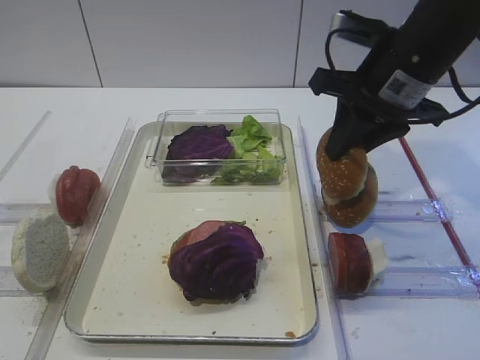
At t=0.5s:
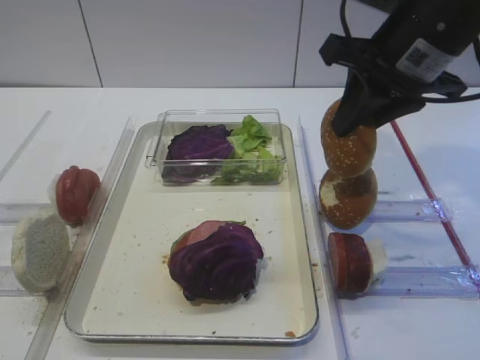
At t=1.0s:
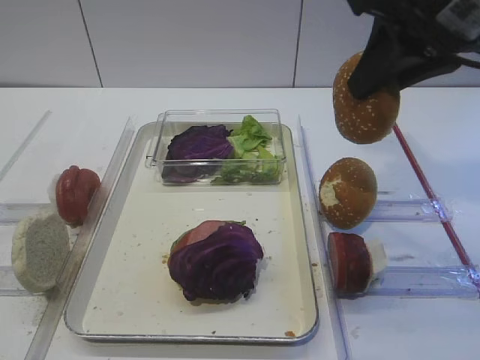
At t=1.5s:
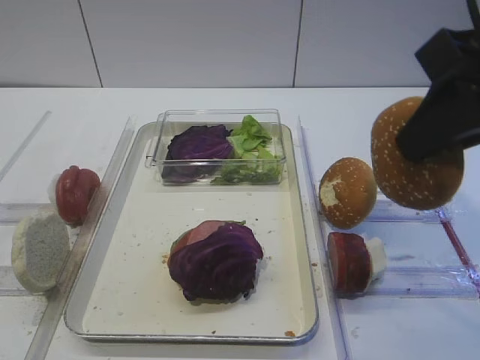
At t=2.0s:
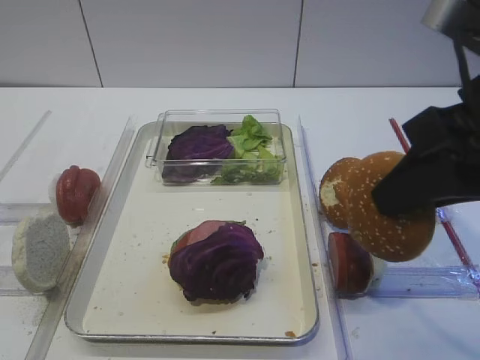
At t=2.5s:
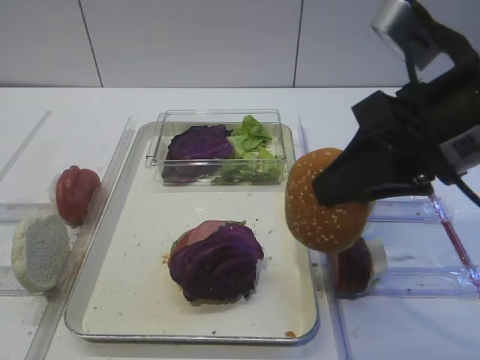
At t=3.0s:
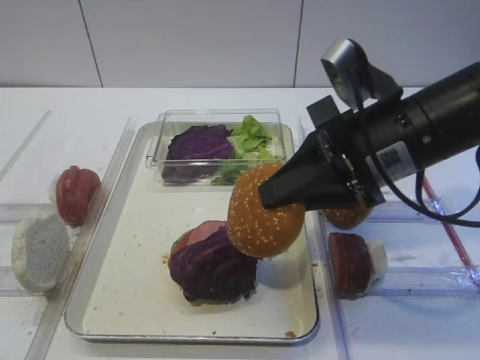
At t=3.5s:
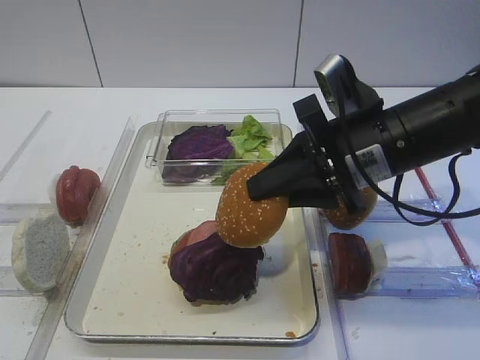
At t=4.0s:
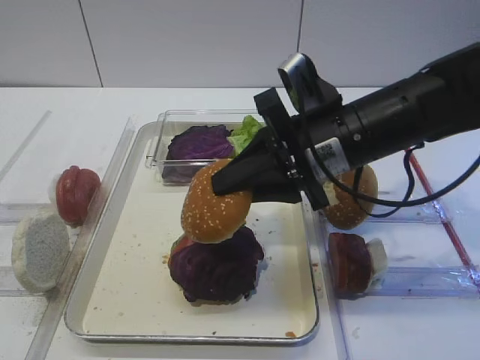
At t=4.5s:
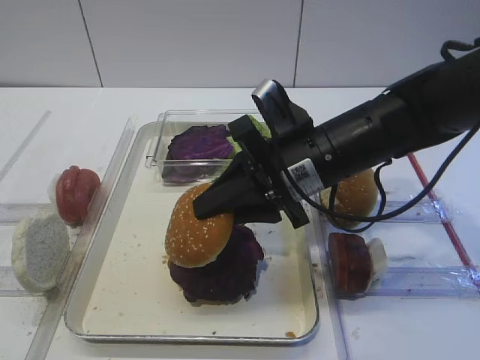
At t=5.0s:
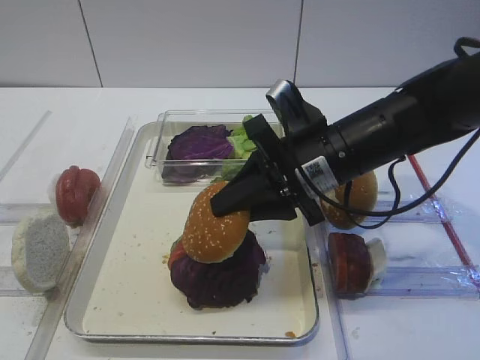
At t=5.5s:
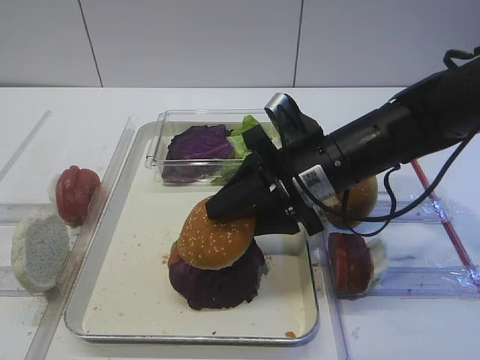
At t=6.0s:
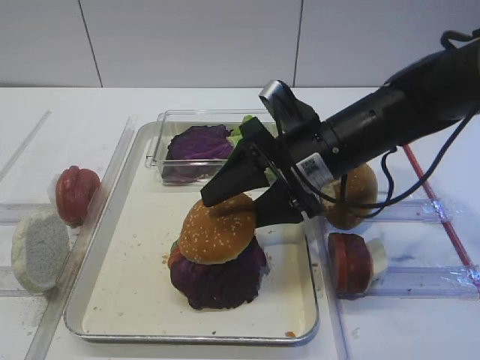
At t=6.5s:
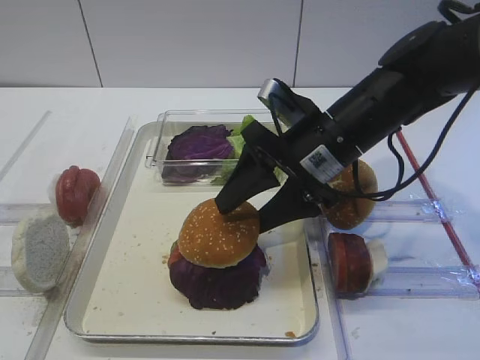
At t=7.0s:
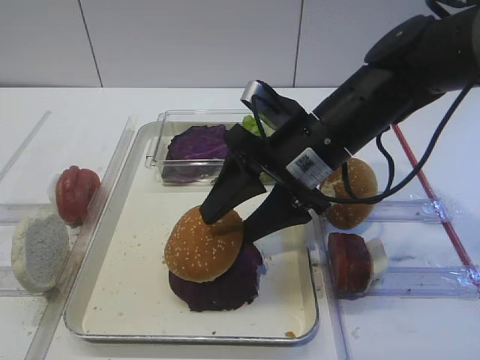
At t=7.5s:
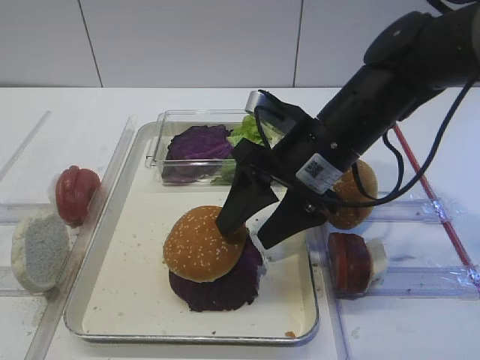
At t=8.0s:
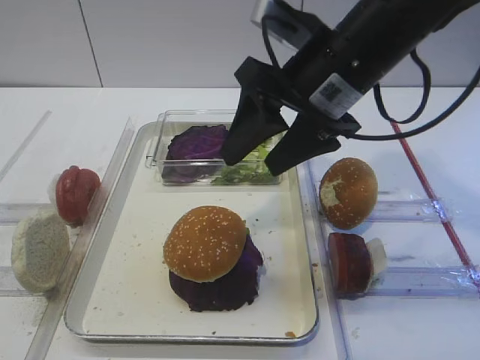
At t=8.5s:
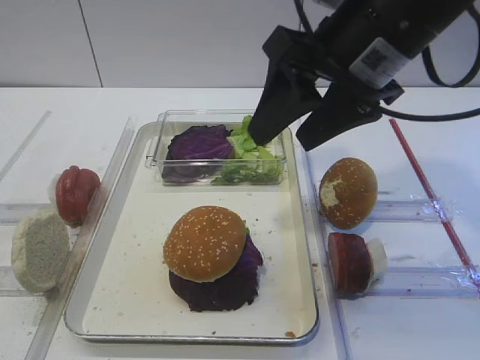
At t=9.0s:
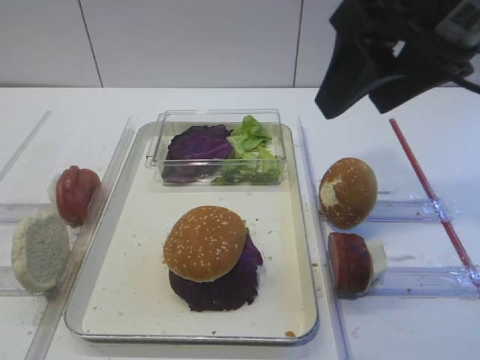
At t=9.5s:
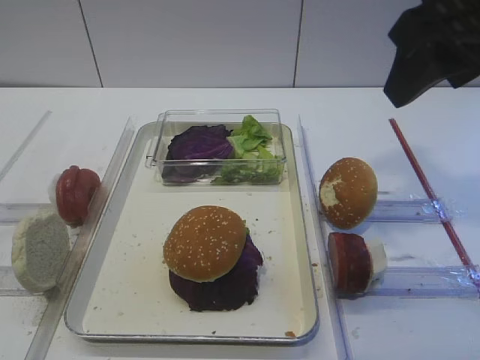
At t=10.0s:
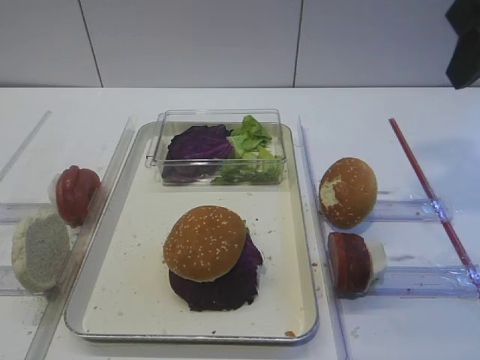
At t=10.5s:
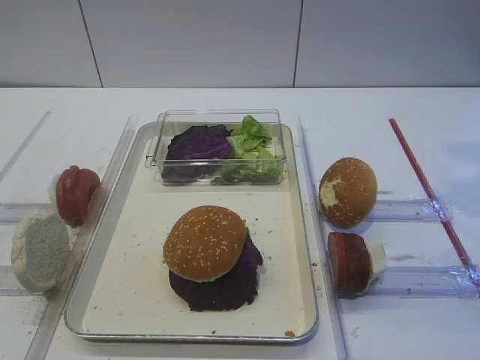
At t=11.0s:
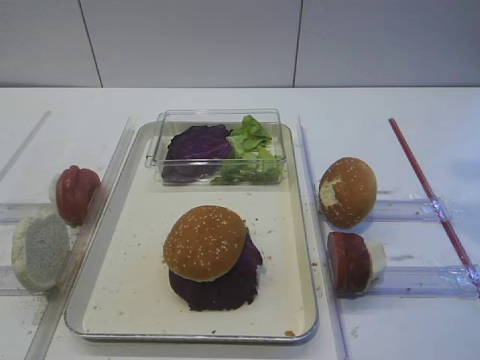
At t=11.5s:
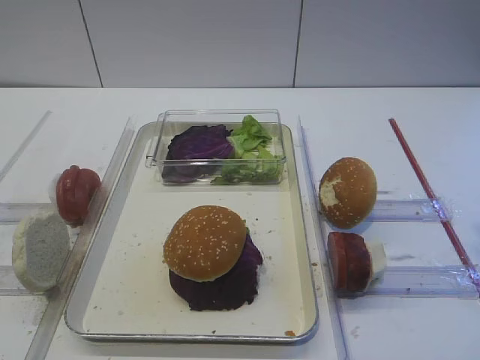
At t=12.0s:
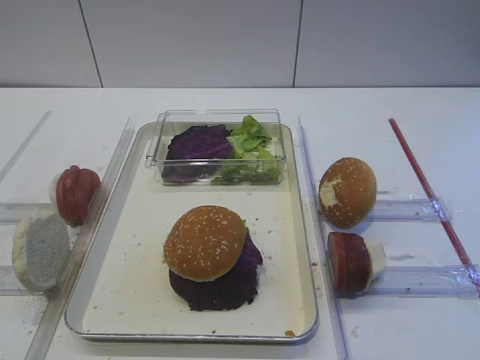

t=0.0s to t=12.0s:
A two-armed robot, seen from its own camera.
Step, t=1.0s to t=8.0s: Place the hamburger lid on the purple cabbage with the right gripper.
t=0.0s to t=2.0s: The right gripper goes some 15 cm backward.
t=2.0s to t=4.0s: The right gripper shifts about 15 cm forward, downward and to the left.
t=4.0s to t=6.0s: The right gripper opens its fingers.
t=6.0s to t=8.0s: The right gripper goes about 10 cm upward.
t=8.0s to t=10.0s: The right gripper goes about 15 cm to the right and upward.
t=10.0s to t=12.0s: The right gripper travels backward by roughly 15 cm.

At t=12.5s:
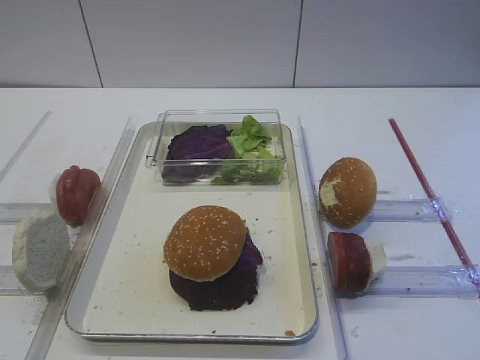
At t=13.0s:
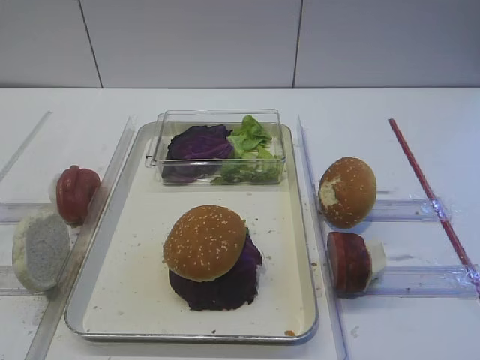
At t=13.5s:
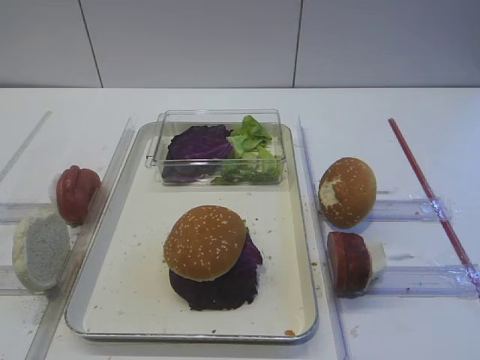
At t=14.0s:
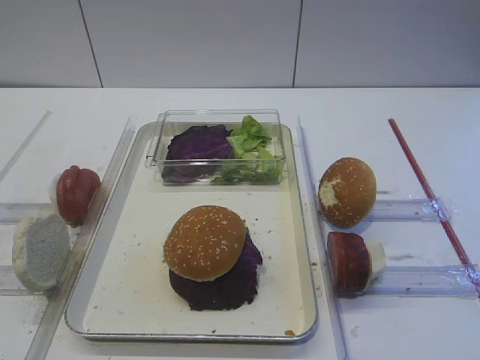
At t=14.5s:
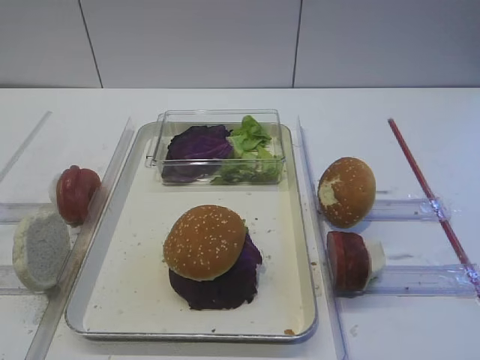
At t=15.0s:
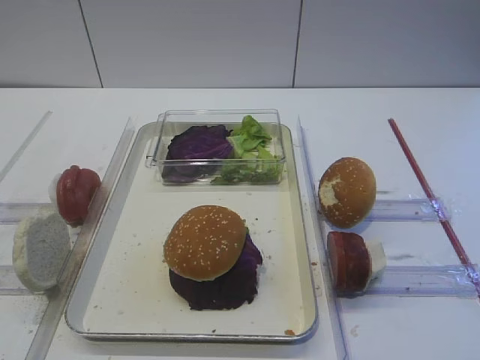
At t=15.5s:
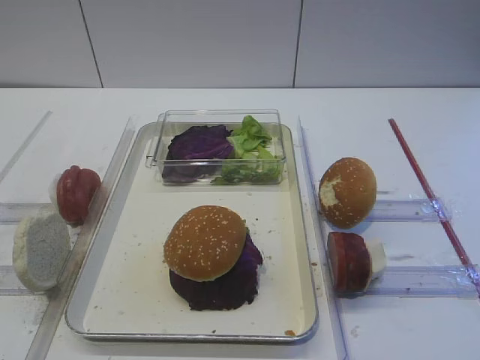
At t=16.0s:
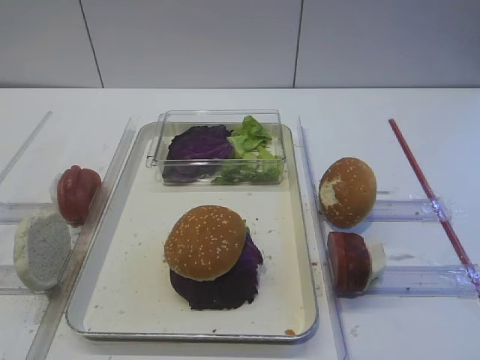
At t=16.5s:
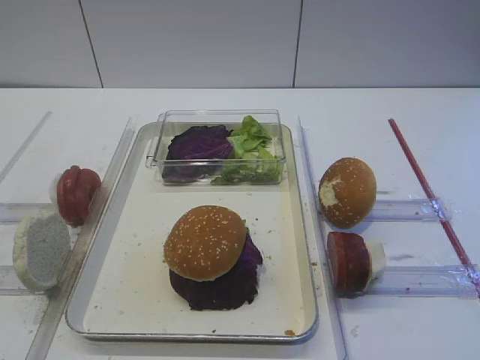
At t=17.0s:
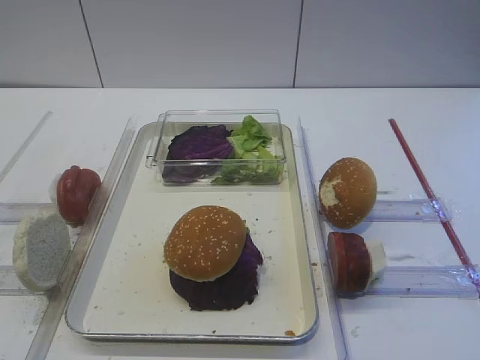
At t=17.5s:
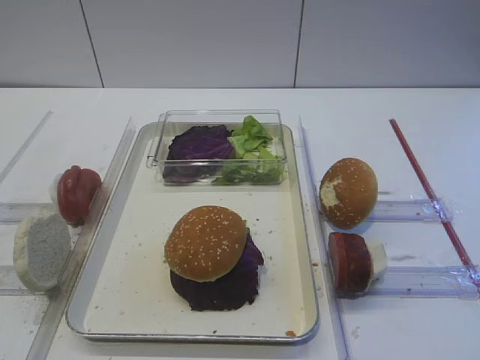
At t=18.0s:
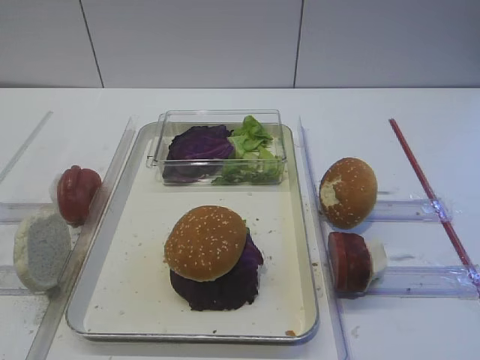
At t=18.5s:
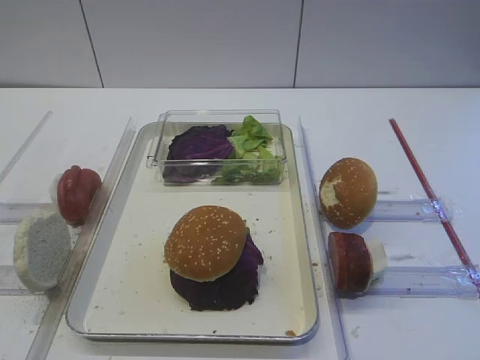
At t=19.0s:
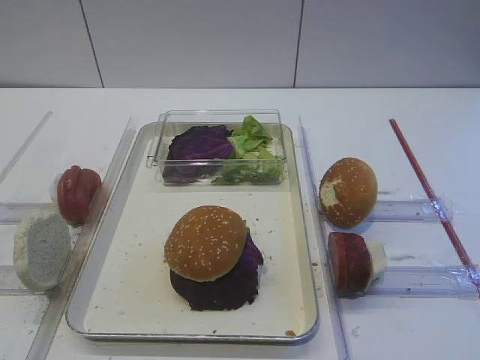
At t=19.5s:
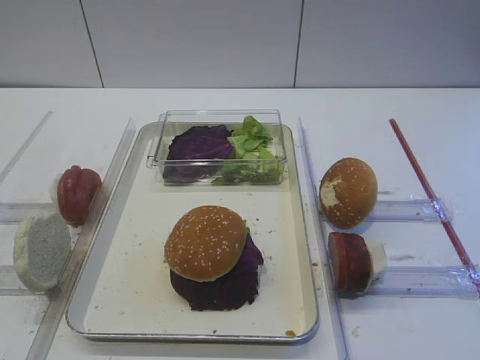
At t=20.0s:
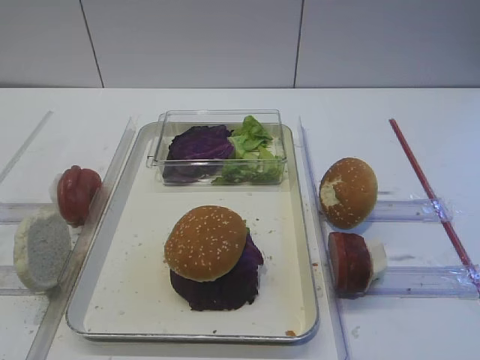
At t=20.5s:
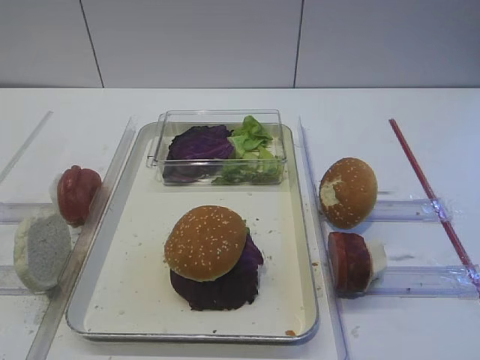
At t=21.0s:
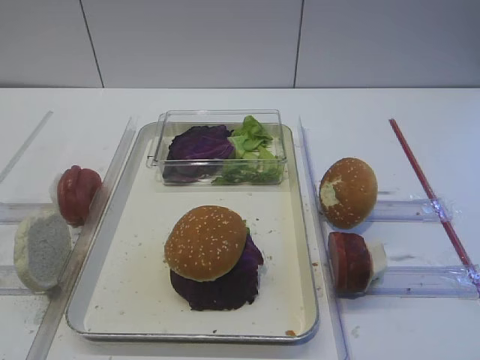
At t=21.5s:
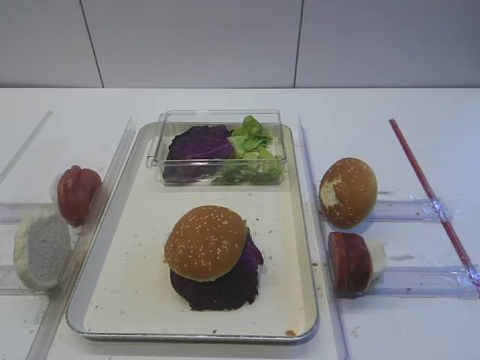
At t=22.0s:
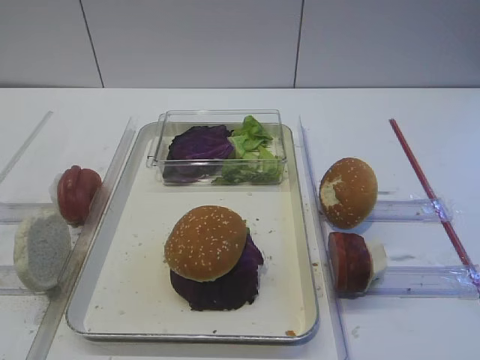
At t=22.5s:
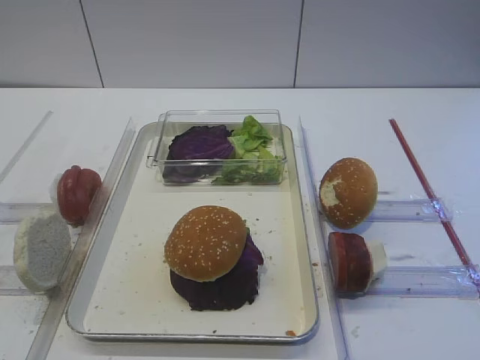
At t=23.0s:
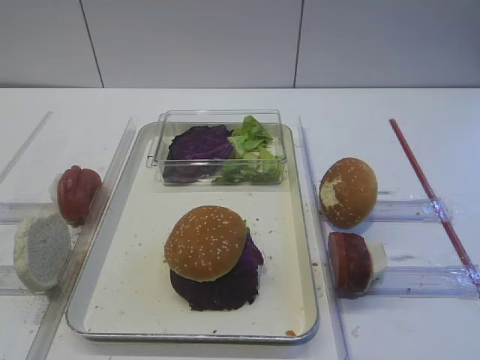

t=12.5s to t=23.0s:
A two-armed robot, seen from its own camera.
t=12.5s to t=14.5s: The right gripper goes about 15 cm downward.
t=16.5s to t=23.0s: Both grippers stay about where they are.

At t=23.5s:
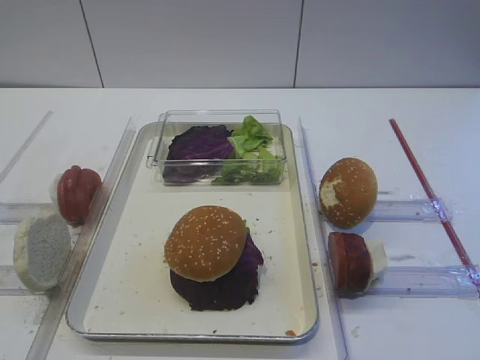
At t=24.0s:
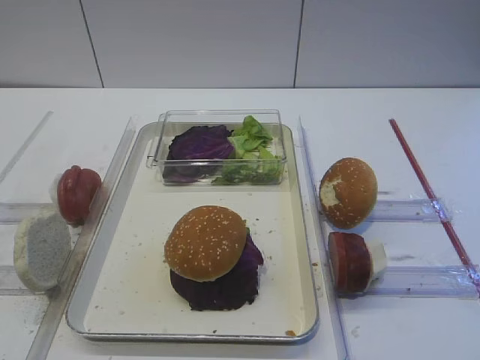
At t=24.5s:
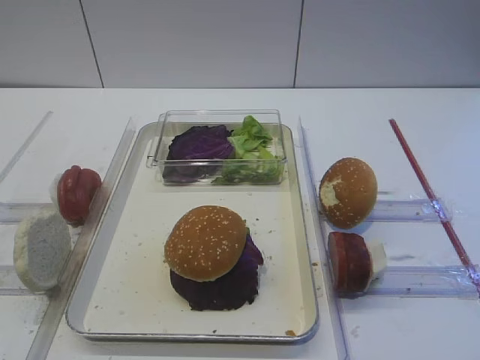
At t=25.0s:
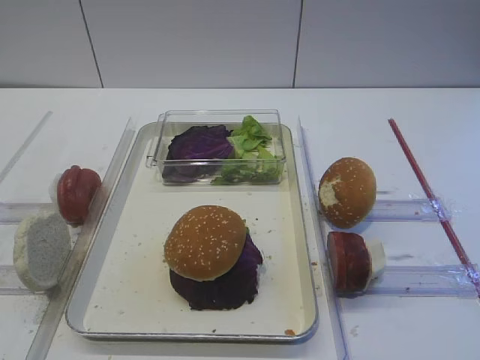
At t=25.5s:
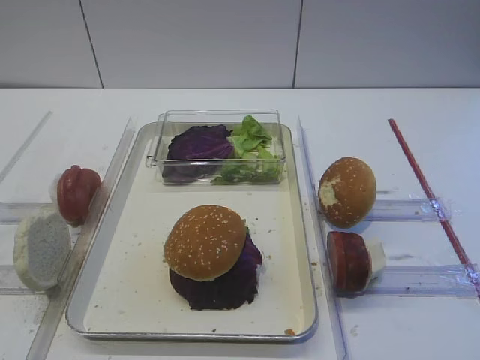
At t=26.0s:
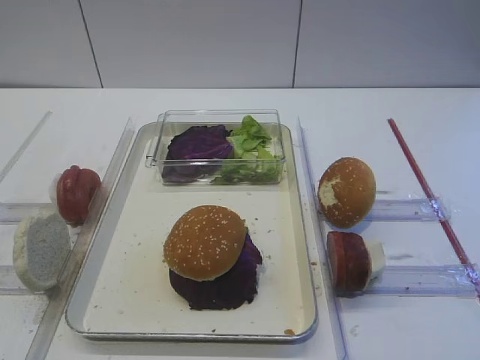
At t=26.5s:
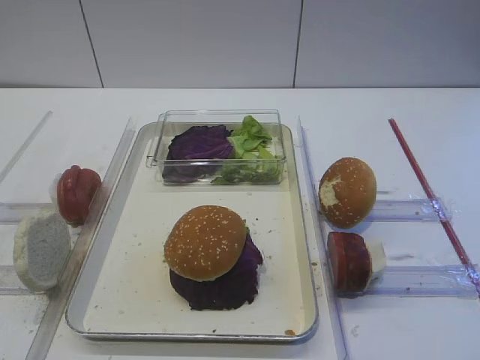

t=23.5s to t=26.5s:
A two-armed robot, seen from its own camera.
t=23.5s to t=26.5s: Both grippers stay put.
